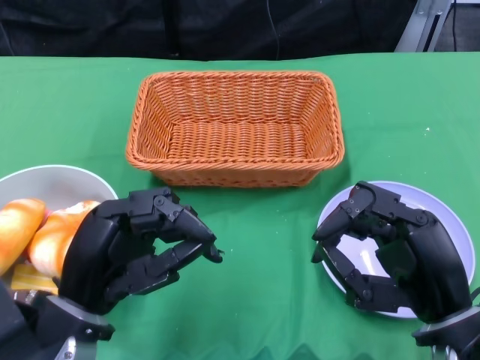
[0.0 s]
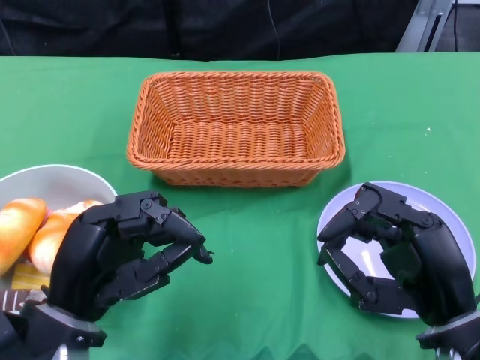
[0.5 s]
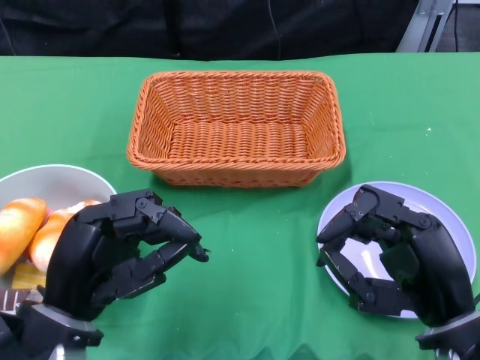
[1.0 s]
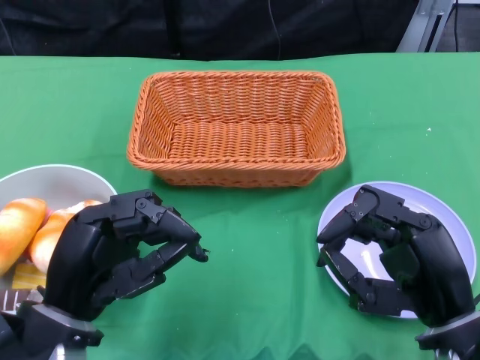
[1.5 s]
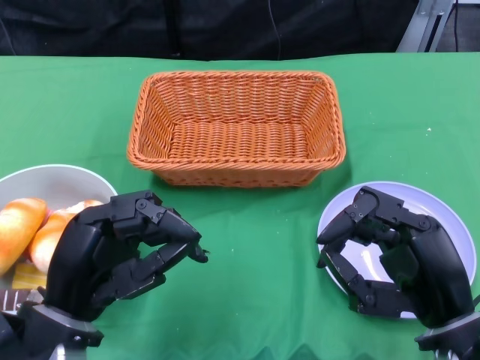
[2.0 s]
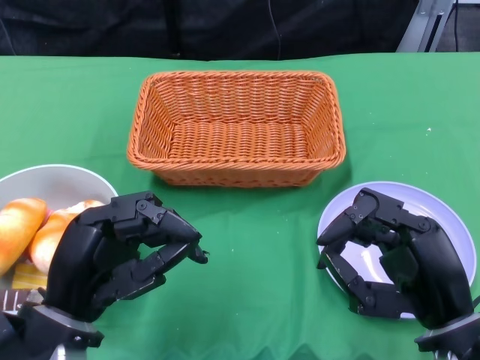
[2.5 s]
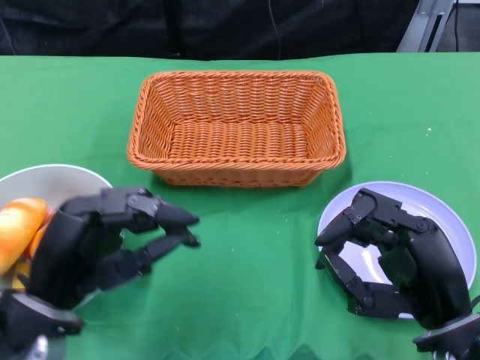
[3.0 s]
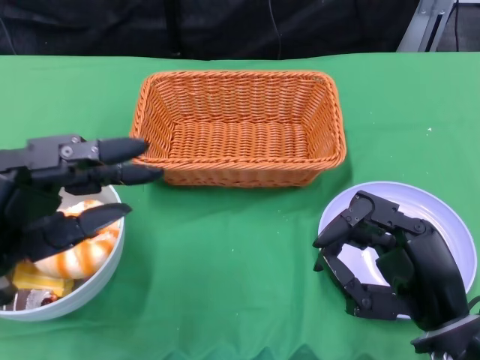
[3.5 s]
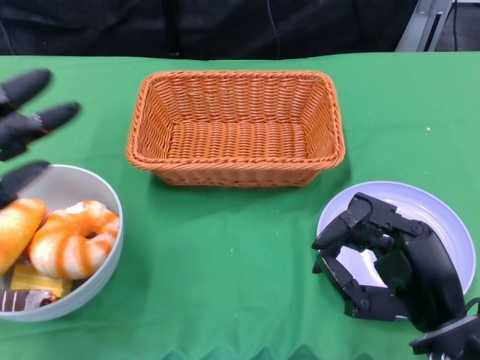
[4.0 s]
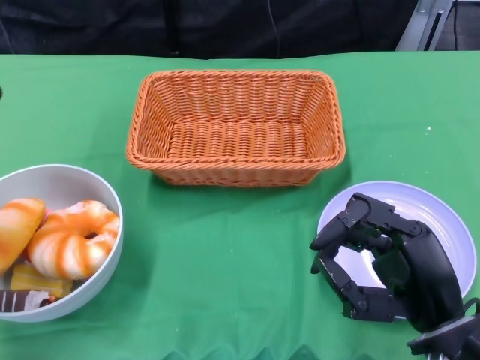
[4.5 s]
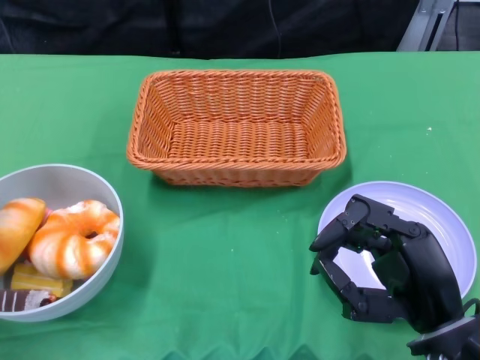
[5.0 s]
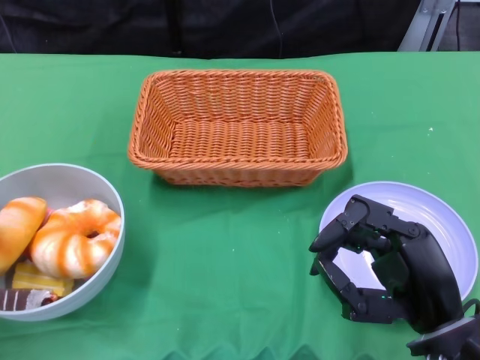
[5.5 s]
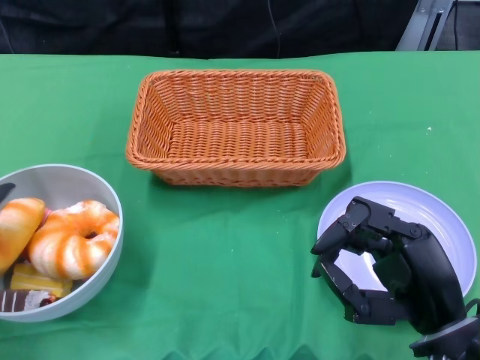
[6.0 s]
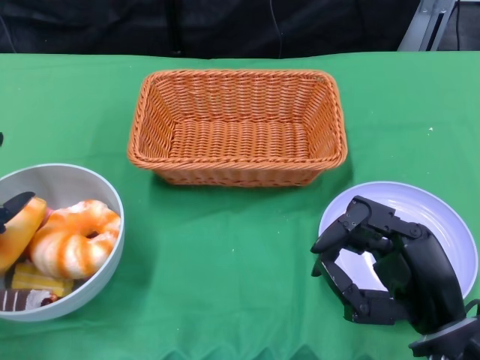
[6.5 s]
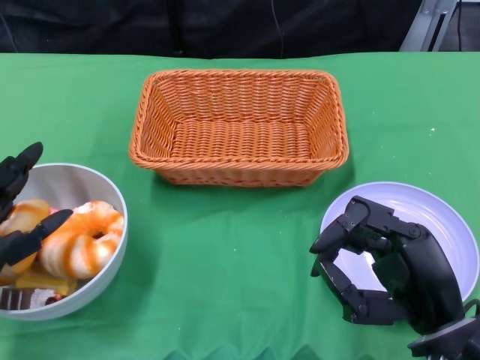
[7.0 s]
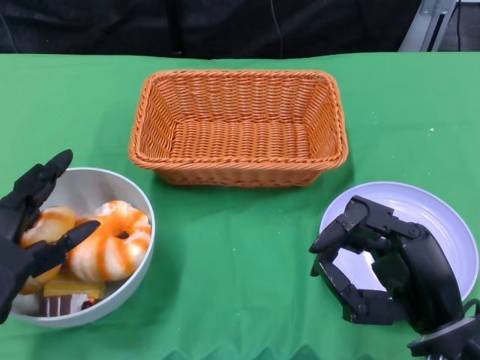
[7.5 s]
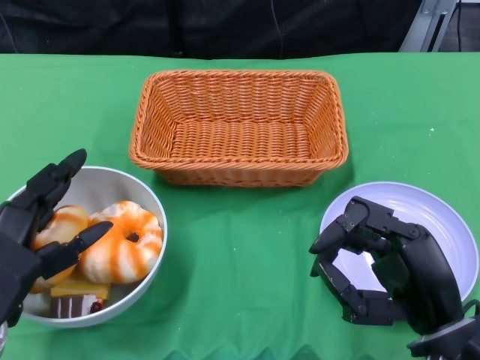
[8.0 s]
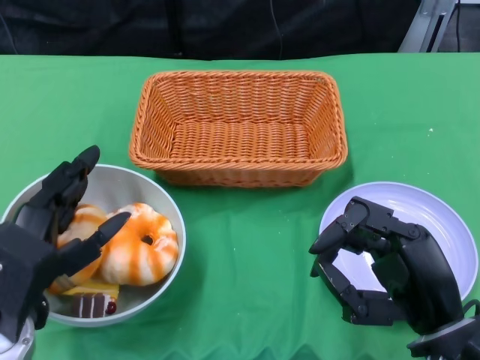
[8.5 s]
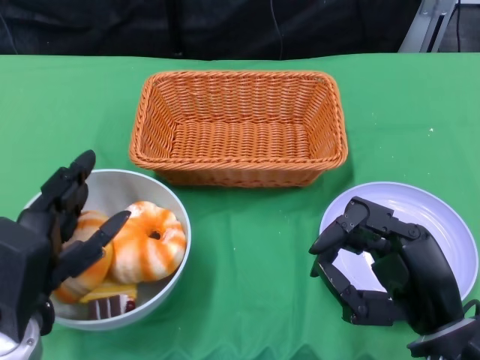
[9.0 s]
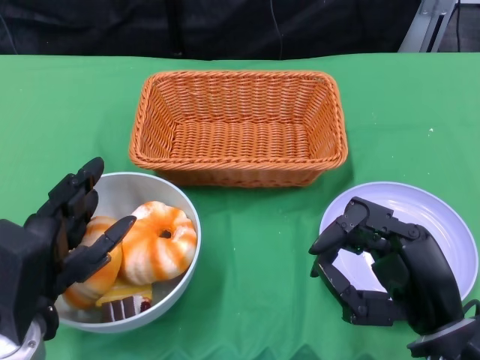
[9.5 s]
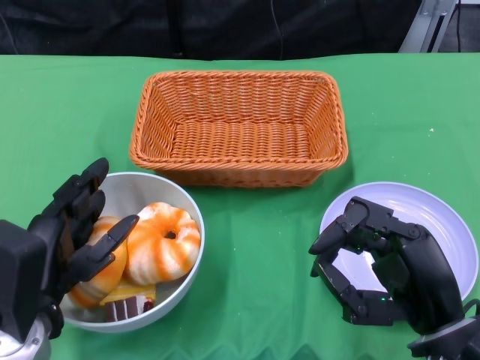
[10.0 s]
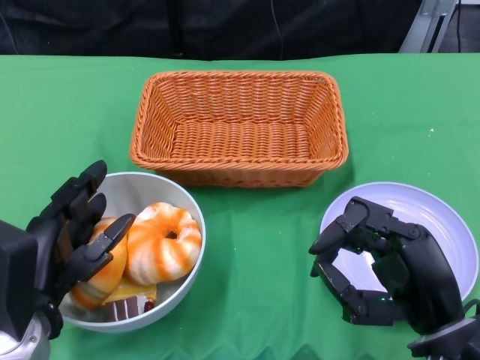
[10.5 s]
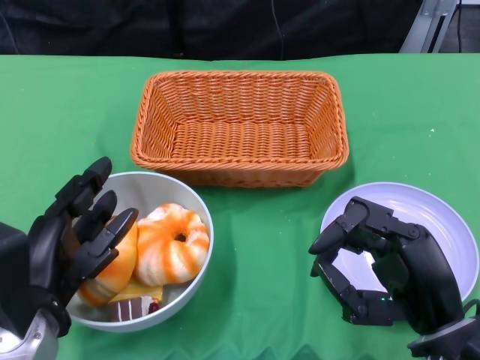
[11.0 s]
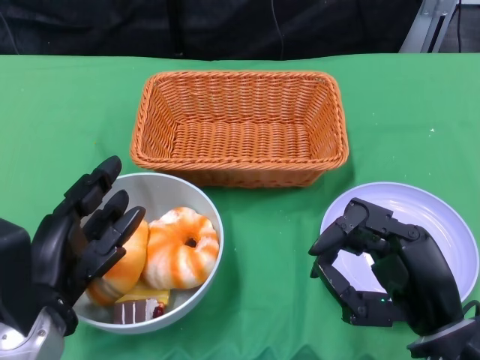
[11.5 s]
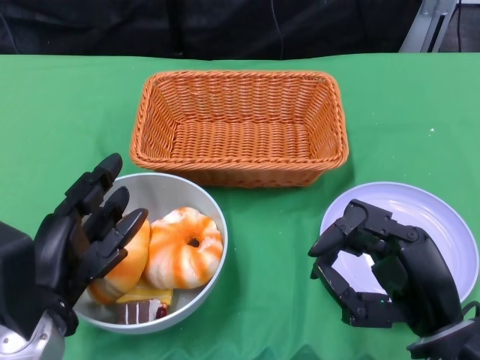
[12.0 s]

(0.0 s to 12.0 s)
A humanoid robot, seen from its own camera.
2.0 s - 4.0 s: The left hand heads to the left and upward, covering about 10 cm.
4.0 s - 6.0 s: The left hand moves downward, approximately 5 cm.
6.0 s - 8.0 s: The left hand is displaced to the right by roughly 5 cm.
10.0 s - 12.0 s: The hands move only a little.

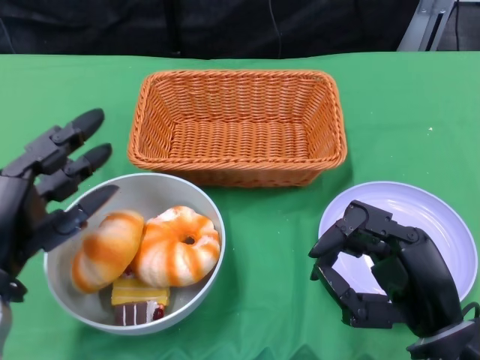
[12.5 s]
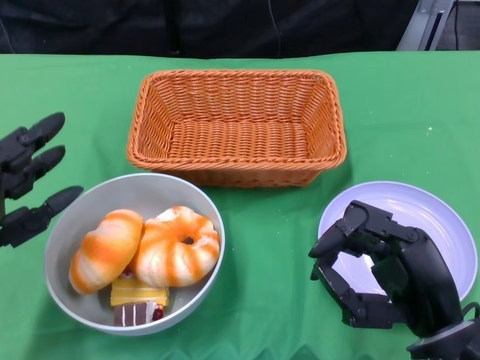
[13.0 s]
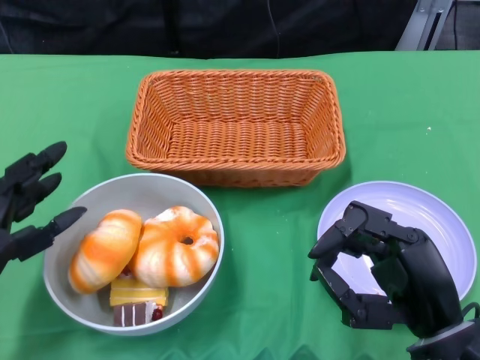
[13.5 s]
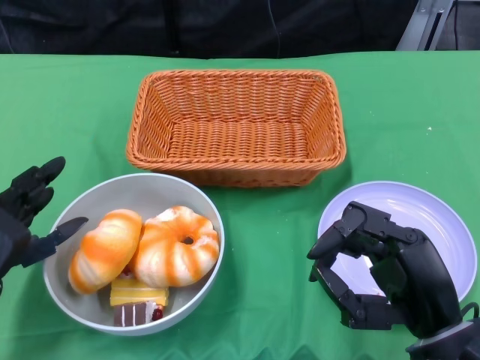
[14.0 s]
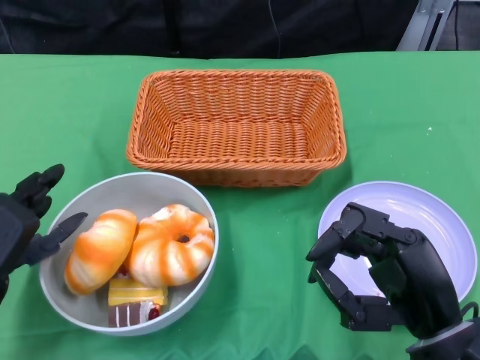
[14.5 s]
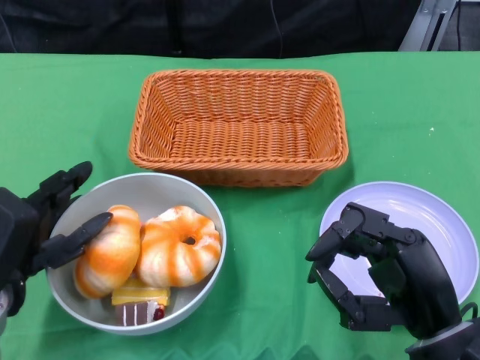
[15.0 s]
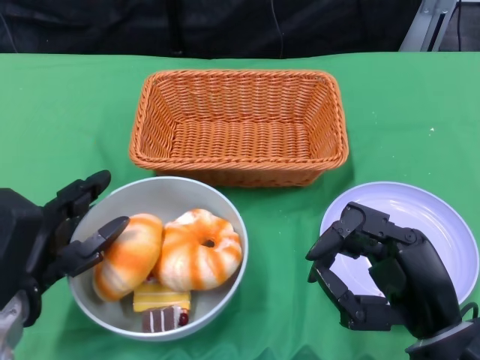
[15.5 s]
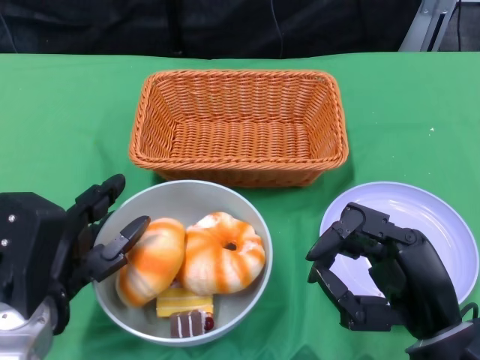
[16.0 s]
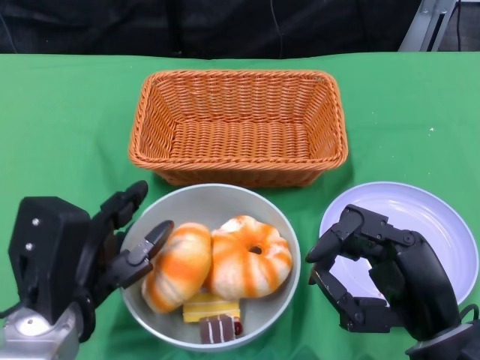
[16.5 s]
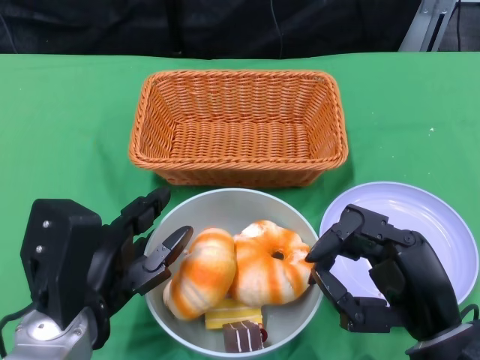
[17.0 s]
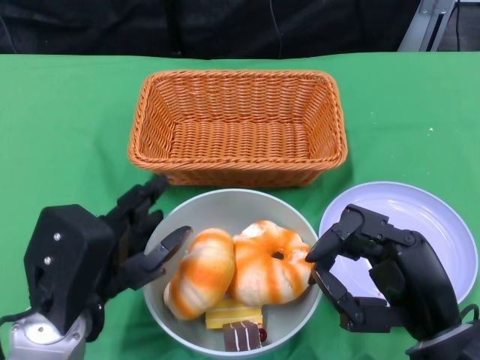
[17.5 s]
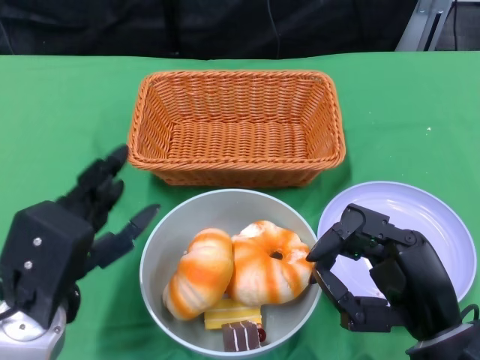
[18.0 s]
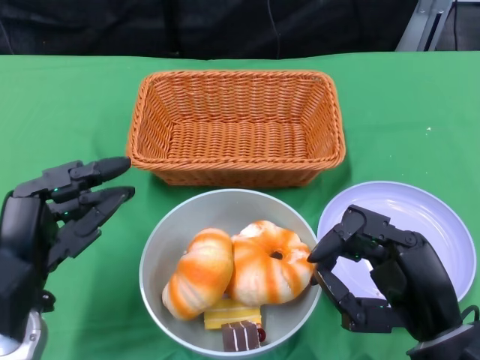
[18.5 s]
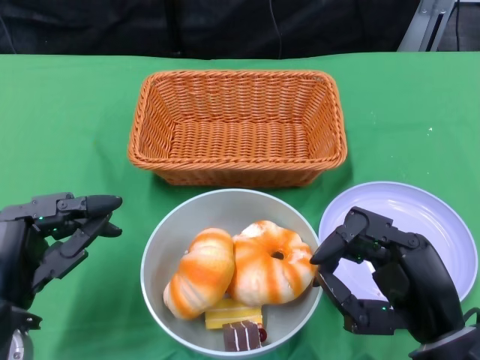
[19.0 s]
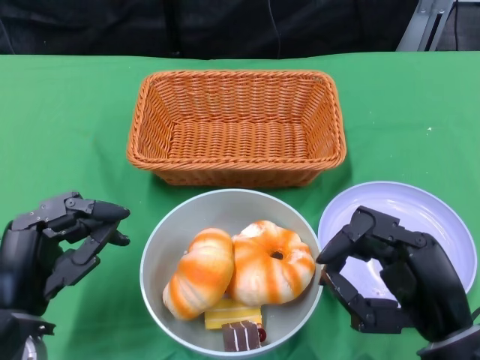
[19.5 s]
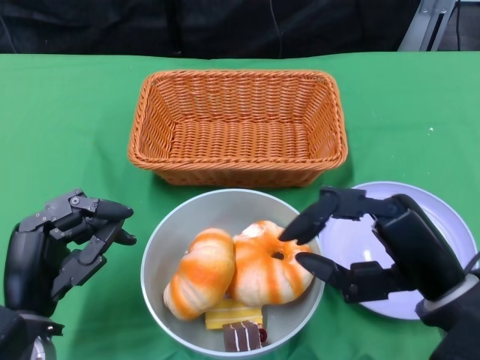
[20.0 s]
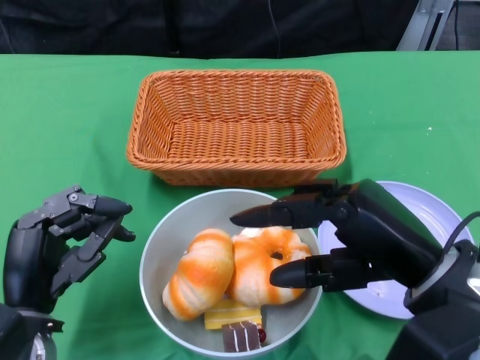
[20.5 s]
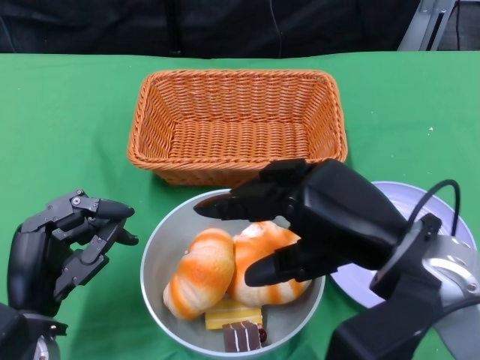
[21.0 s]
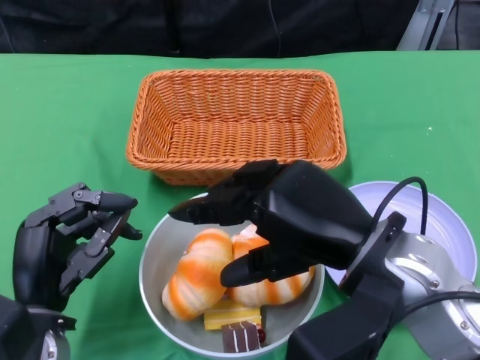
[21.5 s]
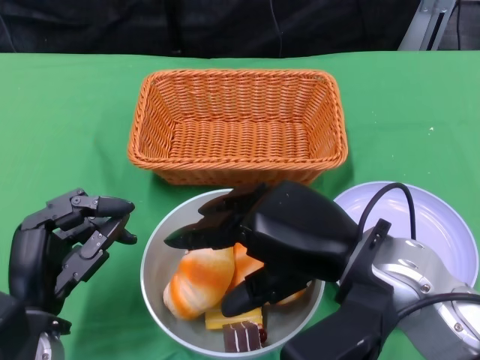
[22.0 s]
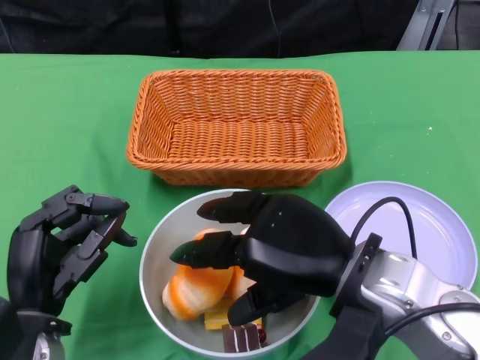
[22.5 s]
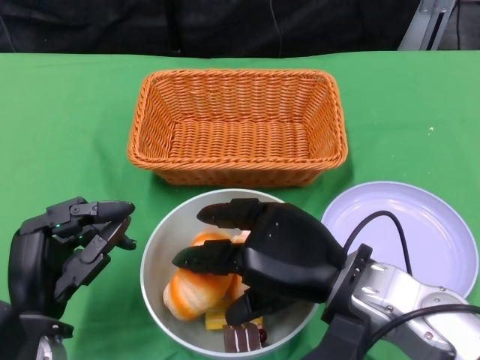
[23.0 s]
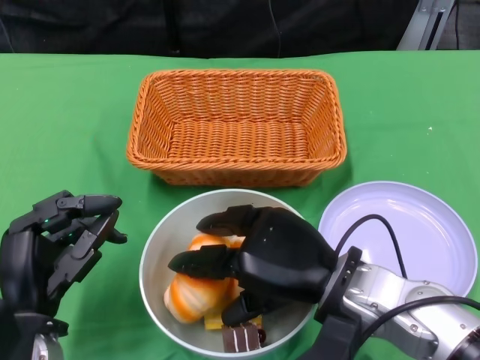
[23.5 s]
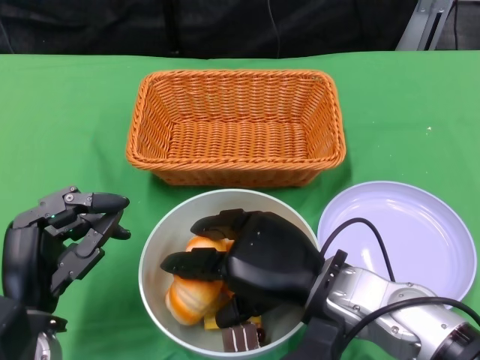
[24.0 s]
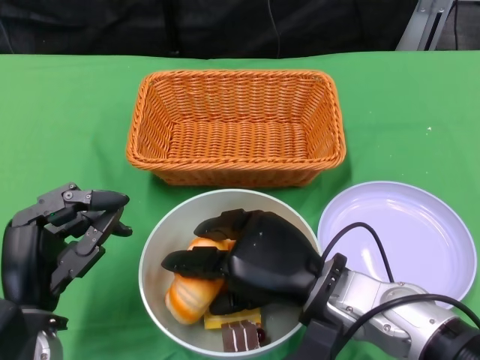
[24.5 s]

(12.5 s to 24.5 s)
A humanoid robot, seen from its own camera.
Step, 12.5 s - 18.0 s: Push the bowl to the center of the table using the left gripper.
12.5 s - 14.5 s: The left hand ends up roughly 5 cm from where it was.
14.5 s - 16.5 s: The left hand moves to the right, some 10 cm.
18.5 s - 20.5 s: The right hand heads upward, covering roughly 5 cm.
20.5 s - 22.5 s: The right hand is displaced to the left by about 5 cm.
22.5 s - 24.5 s: The right hand is displaced downward by about 5 cm.

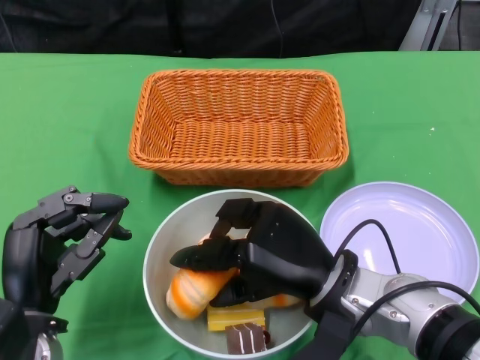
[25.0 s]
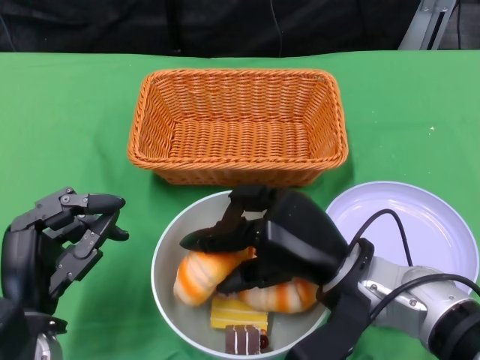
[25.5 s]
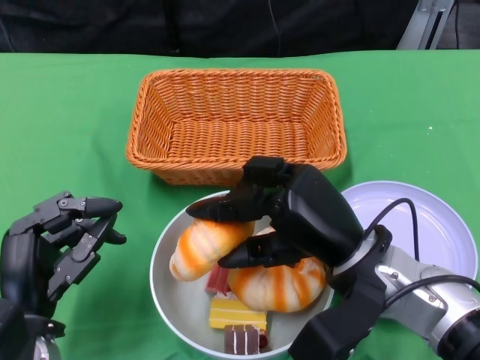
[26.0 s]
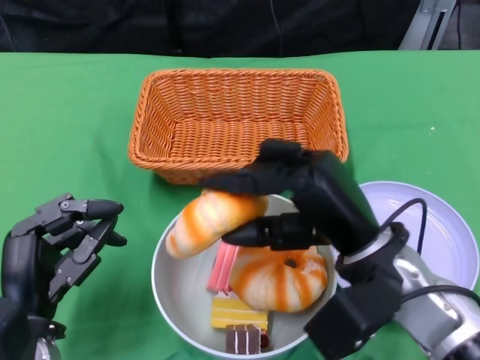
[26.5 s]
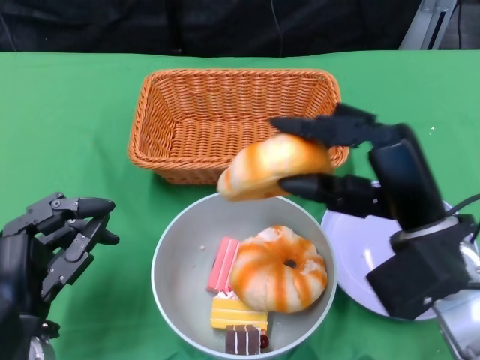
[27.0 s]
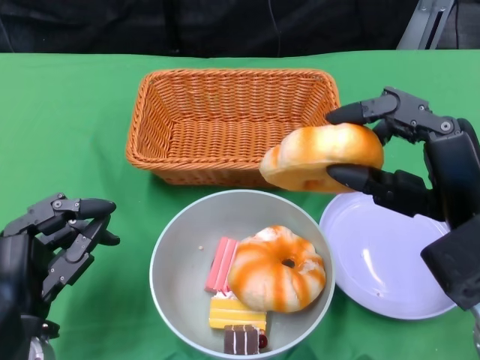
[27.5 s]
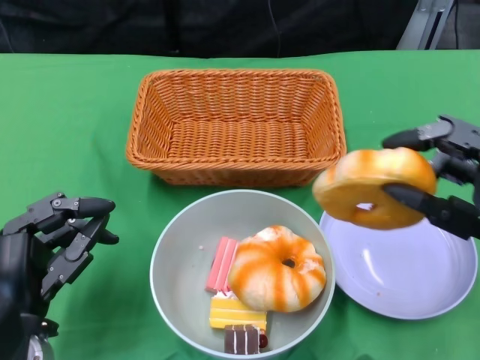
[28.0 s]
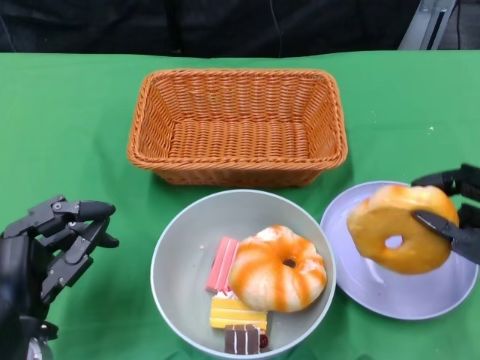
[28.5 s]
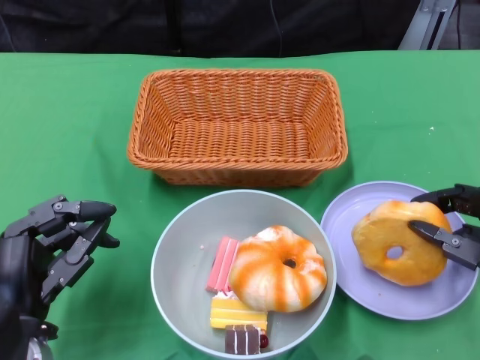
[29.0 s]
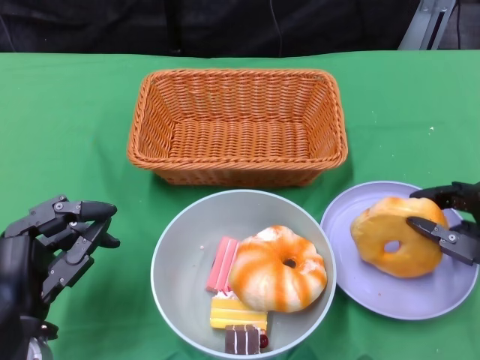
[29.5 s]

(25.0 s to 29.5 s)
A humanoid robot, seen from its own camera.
25.0 s - 27.0 s: The right hand heads upward and to the right, covering roughly 10 cm.
27.0 s - 29.5 s: The right hand is displaced to the right and downward by about 10 cm.
